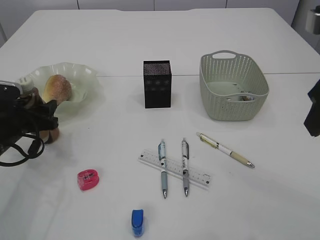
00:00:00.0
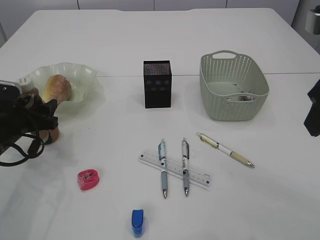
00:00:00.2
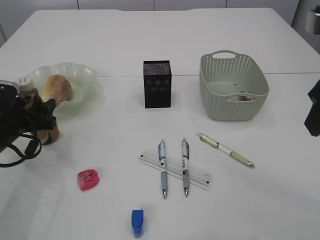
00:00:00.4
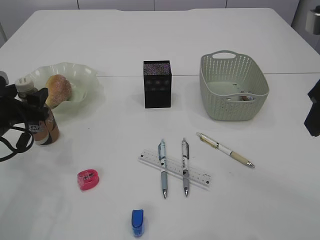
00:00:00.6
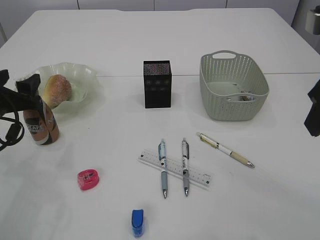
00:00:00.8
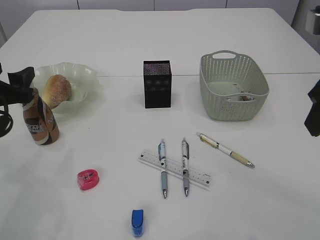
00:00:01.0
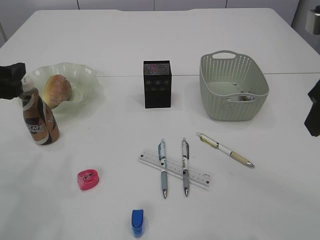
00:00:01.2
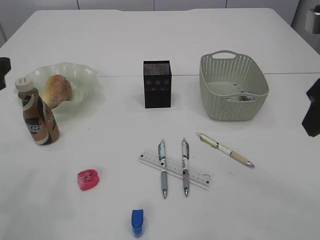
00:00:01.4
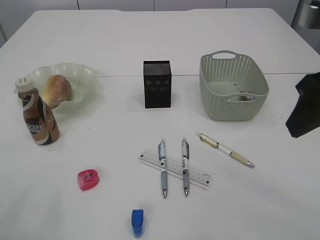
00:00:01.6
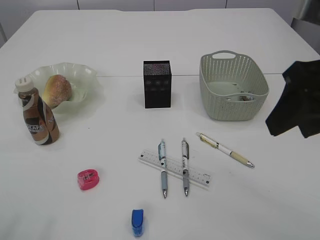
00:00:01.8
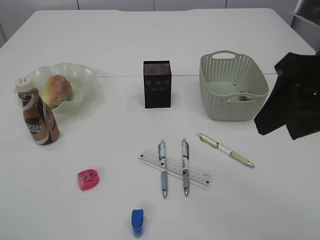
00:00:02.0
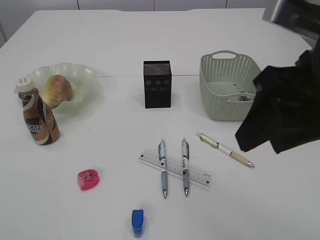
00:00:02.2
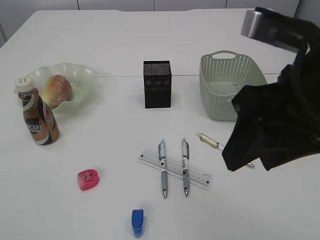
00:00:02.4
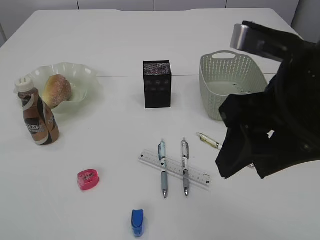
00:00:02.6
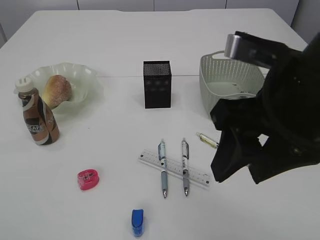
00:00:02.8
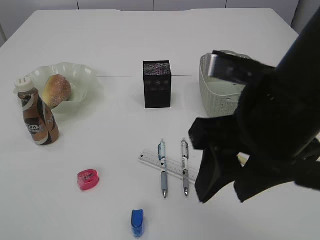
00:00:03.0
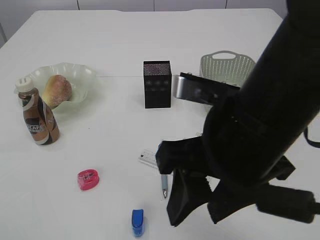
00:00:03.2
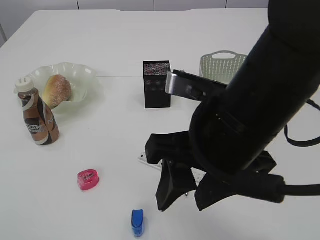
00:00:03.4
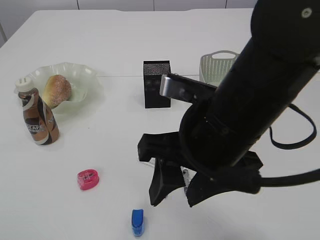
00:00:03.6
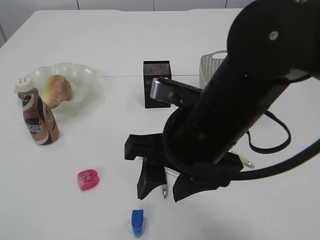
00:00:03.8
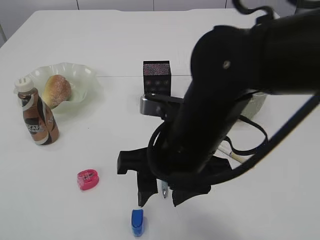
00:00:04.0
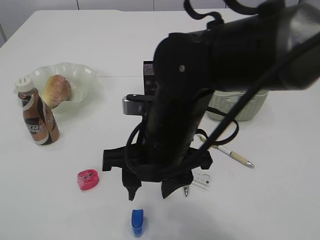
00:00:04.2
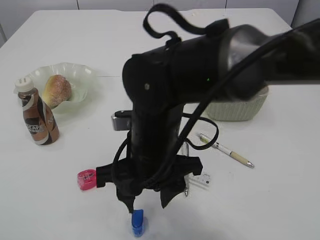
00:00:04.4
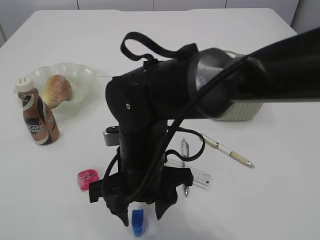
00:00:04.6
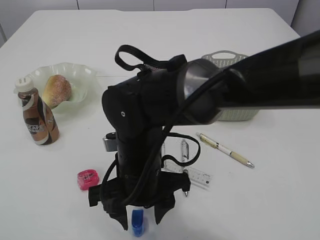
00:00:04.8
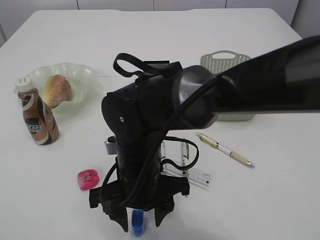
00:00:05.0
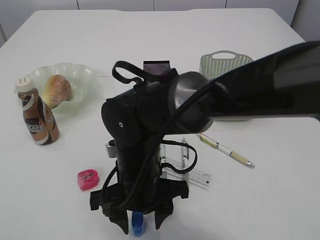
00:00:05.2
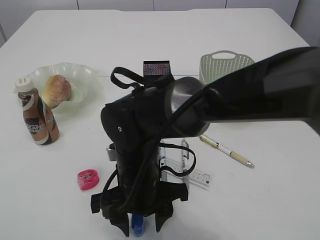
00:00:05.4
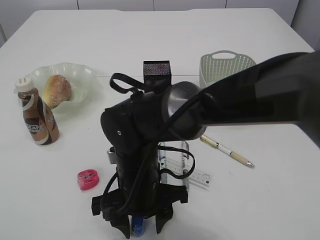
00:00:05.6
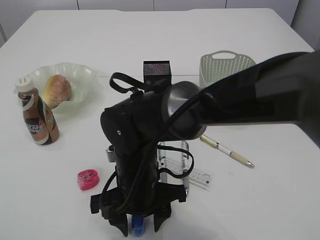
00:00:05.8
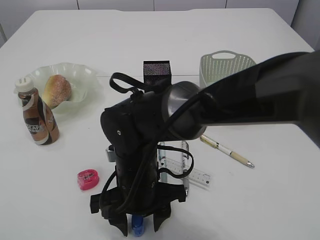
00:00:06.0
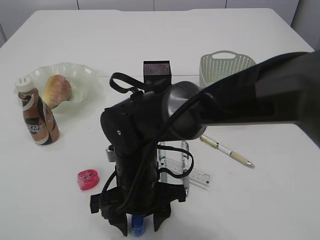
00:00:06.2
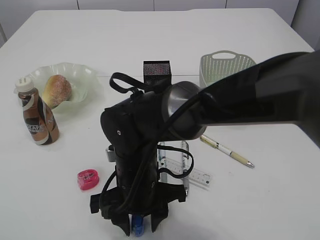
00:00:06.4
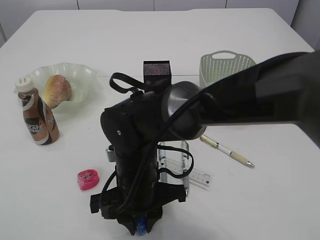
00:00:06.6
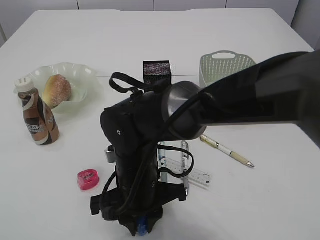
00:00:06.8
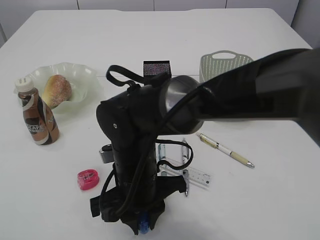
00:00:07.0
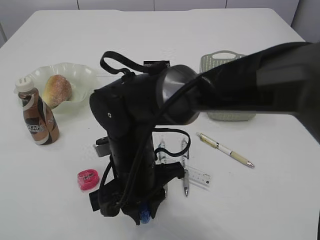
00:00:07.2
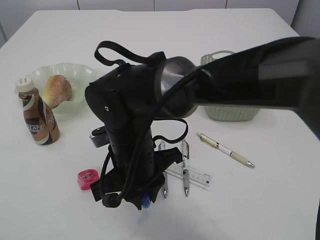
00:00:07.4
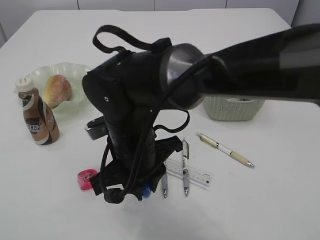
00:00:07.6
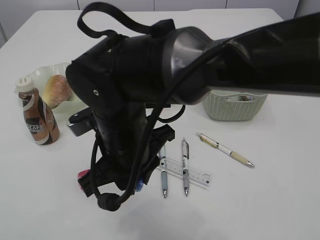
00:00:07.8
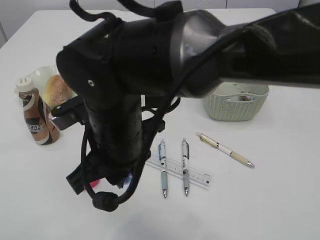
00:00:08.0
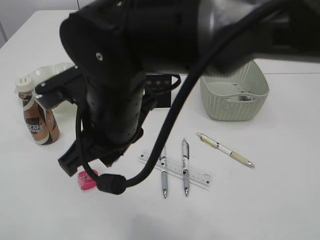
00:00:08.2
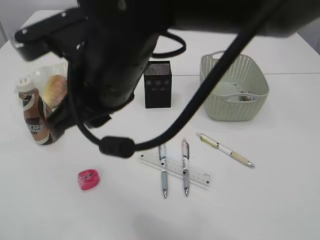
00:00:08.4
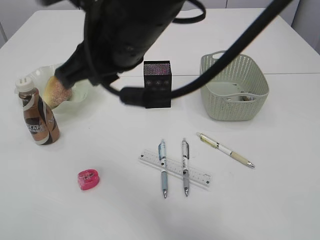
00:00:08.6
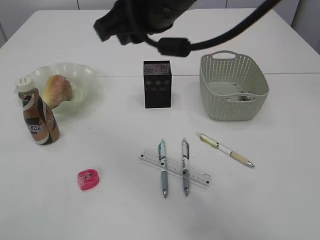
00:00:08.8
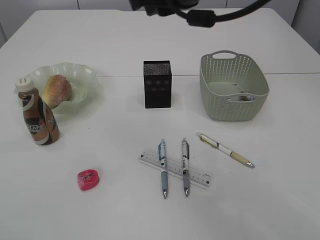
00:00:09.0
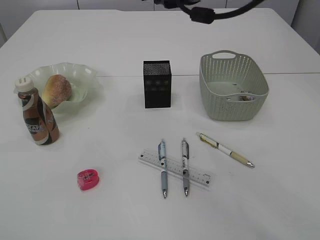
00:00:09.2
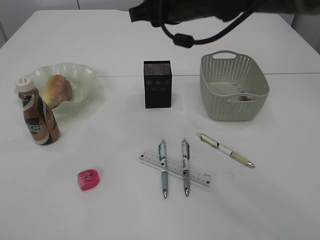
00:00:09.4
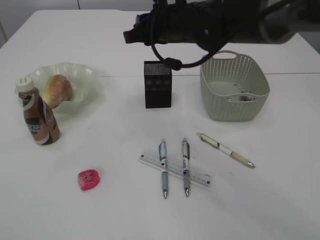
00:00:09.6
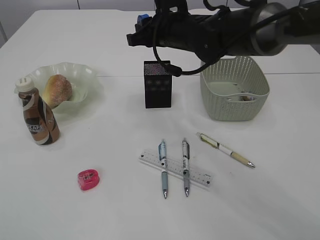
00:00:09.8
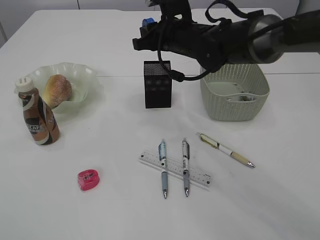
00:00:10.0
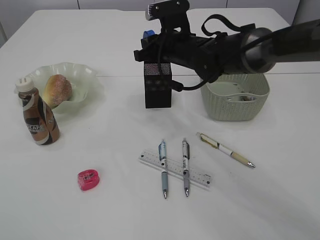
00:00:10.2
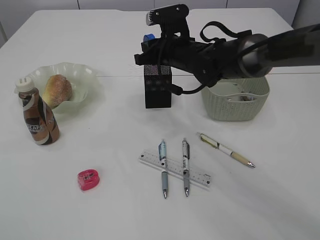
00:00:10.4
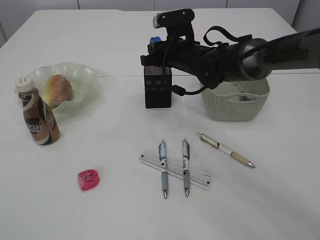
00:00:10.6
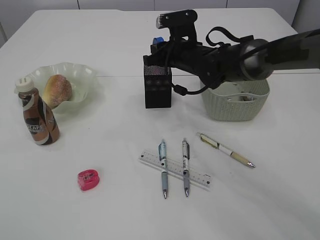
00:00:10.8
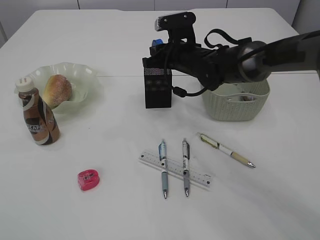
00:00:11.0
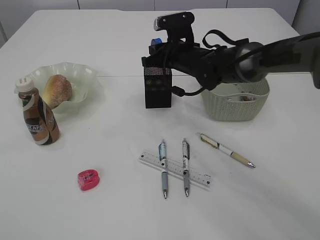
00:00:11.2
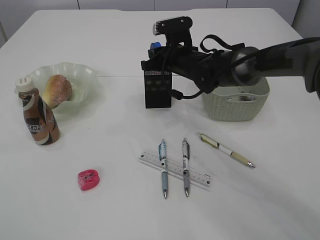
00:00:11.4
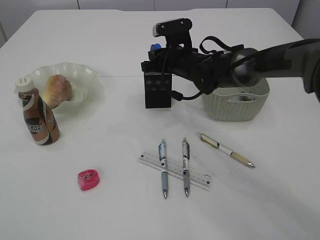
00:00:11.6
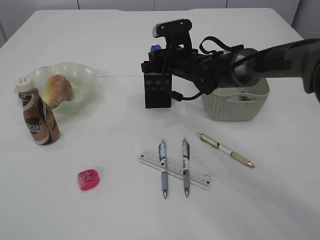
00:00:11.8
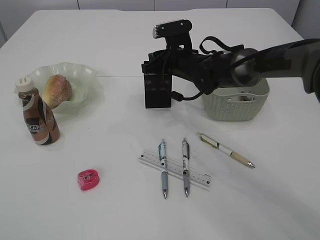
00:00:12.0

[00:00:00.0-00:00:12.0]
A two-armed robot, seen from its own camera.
Step, 00:00:01.4 to 00:00:07.4: Pick up the blue pencil sharpener.
00:00:00.0 to 00:00:01.6: The left gripper shifts about 20 cm upward and backward.
00:00:01.6 to 00:00:03.0: The right gripper heads to the left, covering approximately 10 cm; the left gripper is displaced backward by approximately 15 cm.
00:00:03.0 to 00:00:04.4: The right gripper moves to the left, downward and forward, some 15 cm.
00:00:04.4 to 00:00:06.0: The right gripper moves downward, some 5 cm.
00:00:06.0 to 00:00:07.6: The right gripper moves approximately 5 cm, and closes.
00:00:07.6 to 00:00:09.0: The right gripper heads upward and to the right, covering about 20 cm.
00:00:09.0 to 00:00:10.4: The right gripper goes about 20 cm downward and forward.
00:00:10.4 to 00:00:12.0: The grippers stay close to where they were, moving slightly.

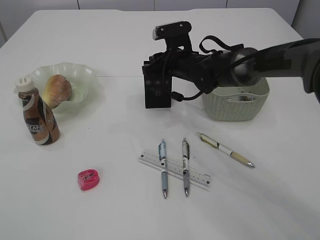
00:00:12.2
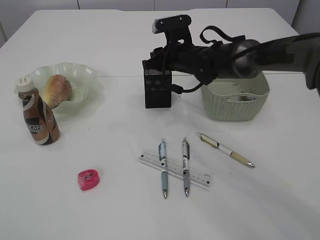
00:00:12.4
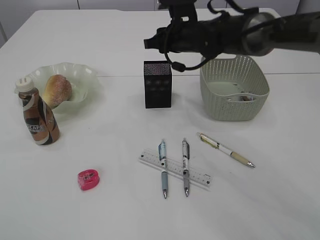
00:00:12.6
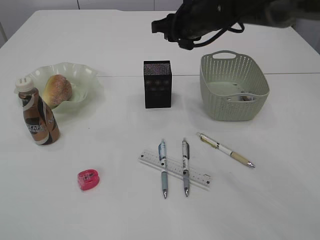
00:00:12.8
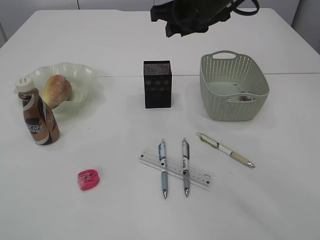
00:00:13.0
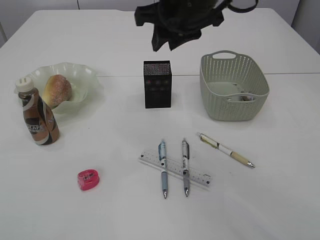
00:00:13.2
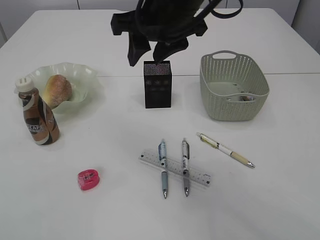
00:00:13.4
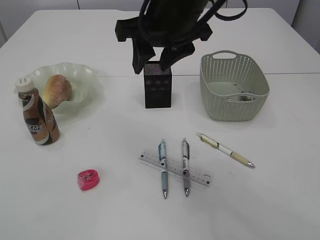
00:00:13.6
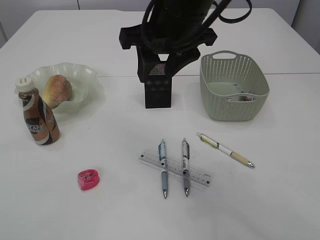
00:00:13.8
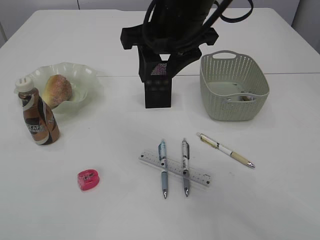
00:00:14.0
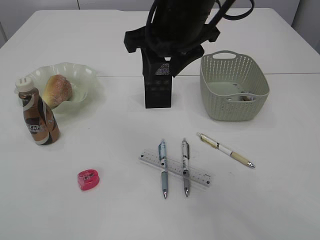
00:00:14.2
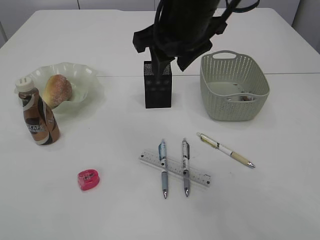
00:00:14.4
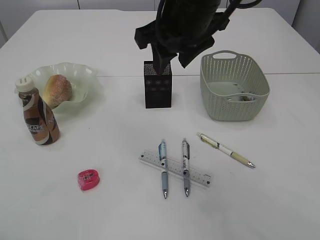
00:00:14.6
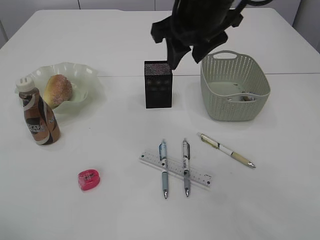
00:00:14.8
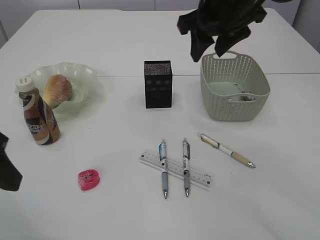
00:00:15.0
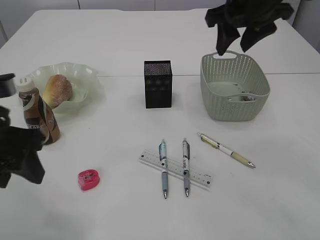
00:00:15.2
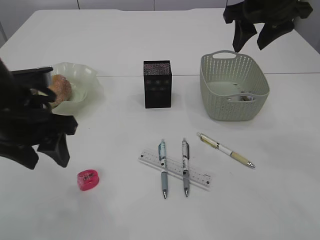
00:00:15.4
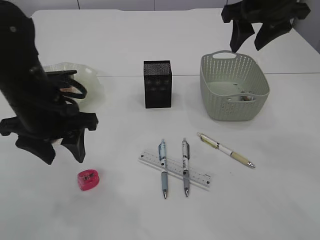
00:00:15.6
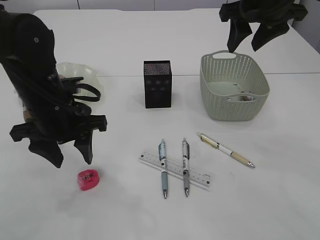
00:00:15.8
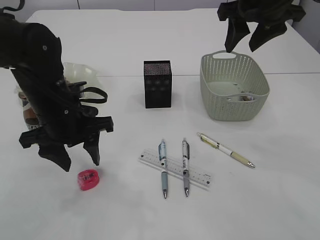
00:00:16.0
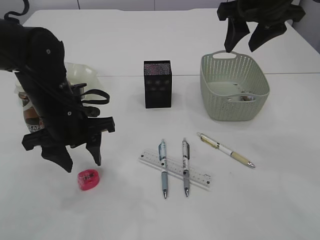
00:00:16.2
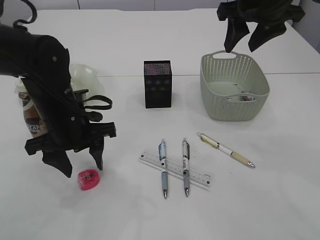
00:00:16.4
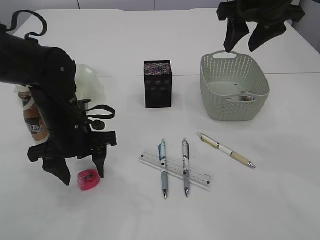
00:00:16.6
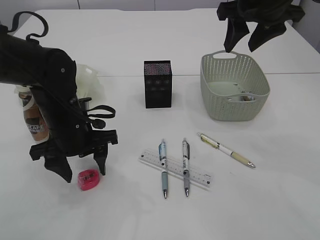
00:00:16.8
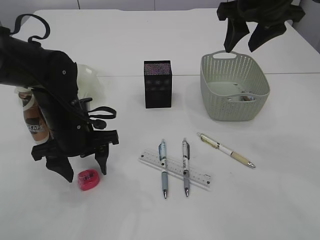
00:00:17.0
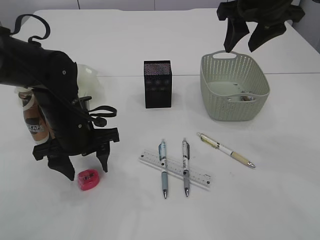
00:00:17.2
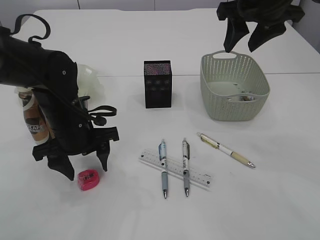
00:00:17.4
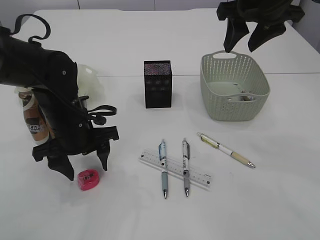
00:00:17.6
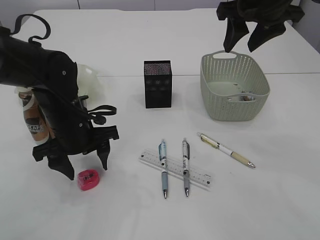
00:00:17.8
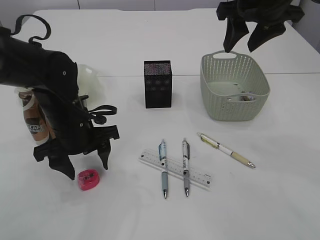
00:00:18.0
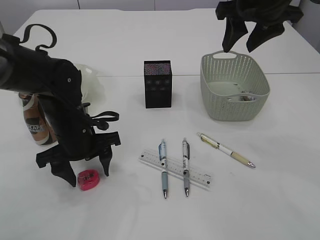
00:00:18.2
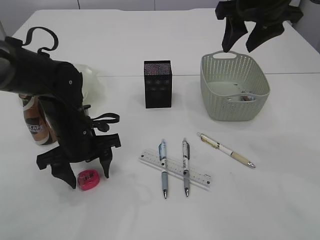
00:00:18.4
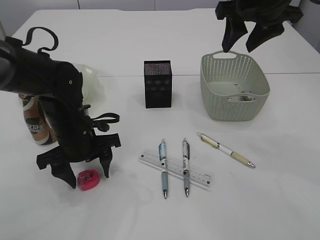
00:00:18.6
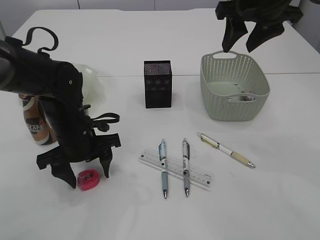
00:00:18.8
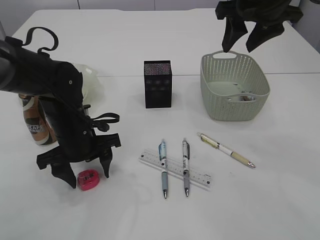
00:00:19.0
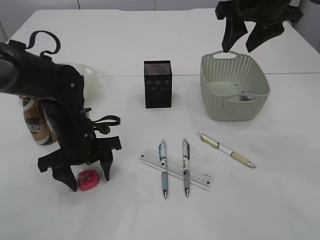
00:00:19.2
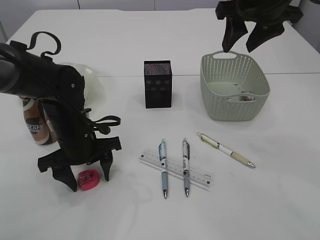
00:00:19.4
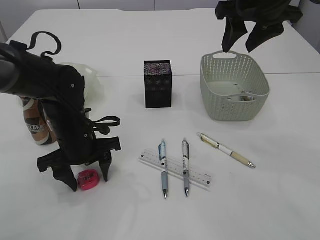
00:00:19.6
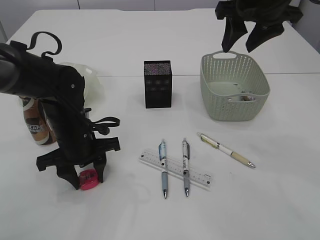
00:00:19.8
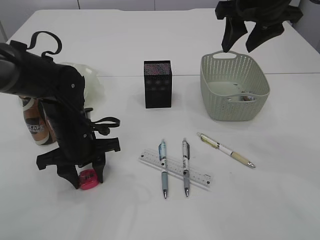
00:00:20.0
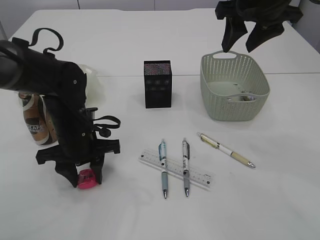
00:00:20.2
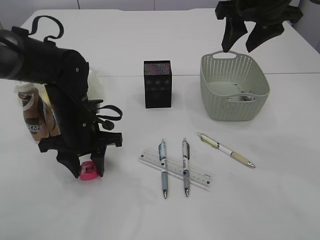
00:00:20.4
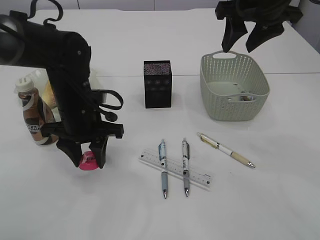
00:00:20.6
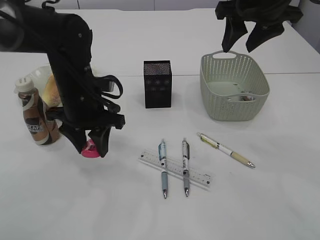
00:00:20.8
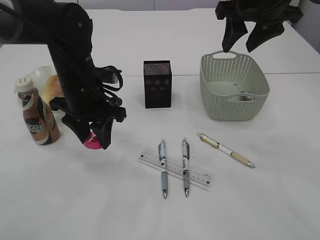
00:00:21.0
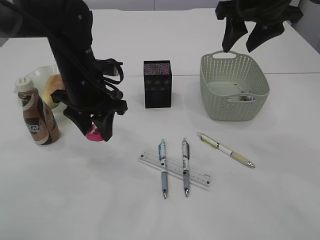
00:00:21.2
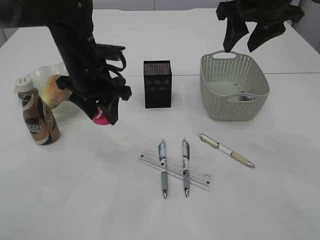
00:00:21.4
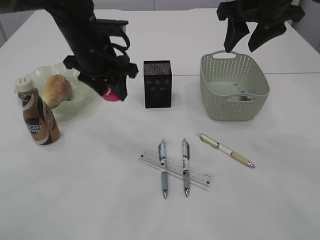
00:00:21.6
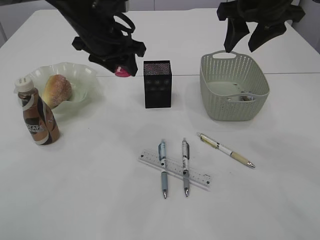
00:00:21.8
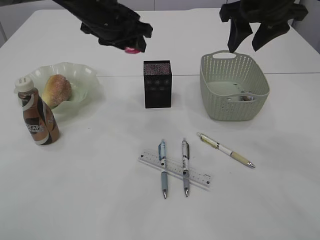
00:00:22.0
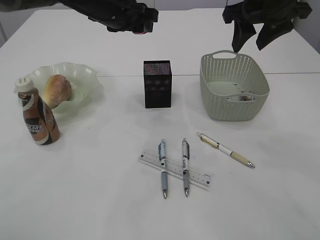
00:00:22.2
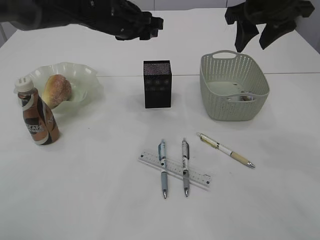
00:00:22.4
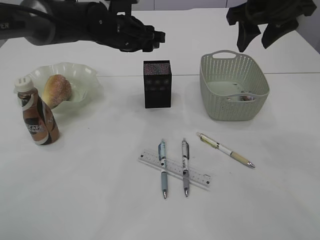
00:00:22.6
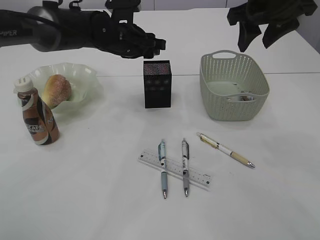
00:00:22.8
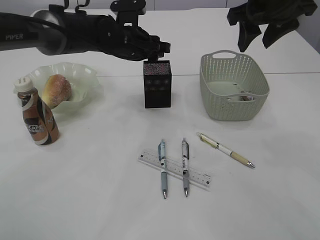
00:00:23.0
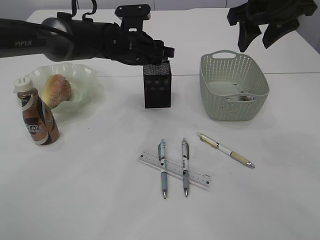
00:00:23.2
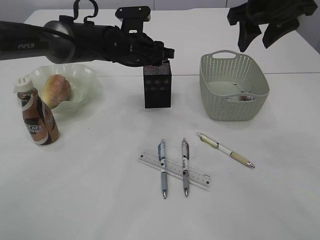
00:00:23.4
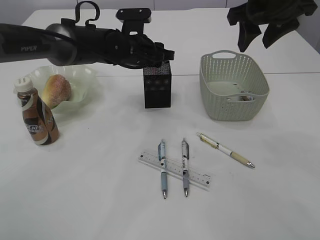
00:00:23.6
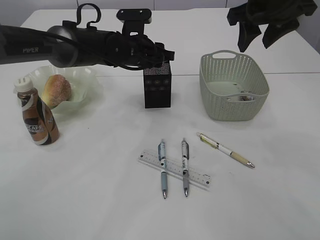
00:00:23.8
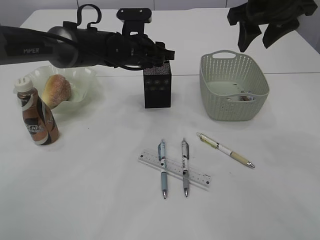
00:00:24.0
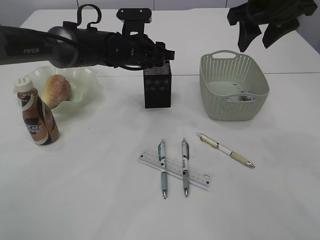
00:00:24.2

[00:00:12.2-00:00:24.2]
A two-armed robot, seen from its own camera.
Step, 00:00:13.4 to 00:00:21.2: Pick up the red pencil sharpener.
00:00:12.2 to 00:00:13.8: The right gripper is displaced upward and backward by approximately 25 cm.
00:00:13.8 to 00:00:15.2: The right gripper moves to the right, about 10 cm. The left gripper goes roughly 15 cm forward, downward and to the right.
00:00:15.2 to 00:00:16.6: The left gripper travels forward, downward and to the right by some 15 cm.
00:00:16.6 to 00:00:18.2: The grippers move only a little.
00:00:18.2 to 00:00:19.8: The left gripper closes.
00:00:19.8 to 00:00:21.2: The left gripper travels upward by approximately 10 cm.
00:00:21.2 to 00:00:22.6: The left gripper heads forward, covering roughly 10 cm.
00:00:22.6 to 00:00:24.2: The grippers move only a little.
